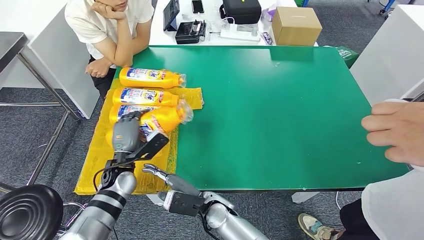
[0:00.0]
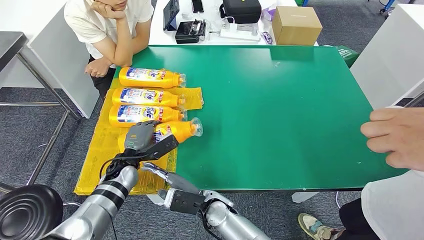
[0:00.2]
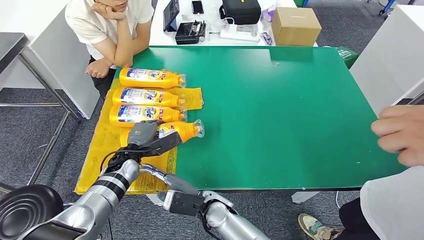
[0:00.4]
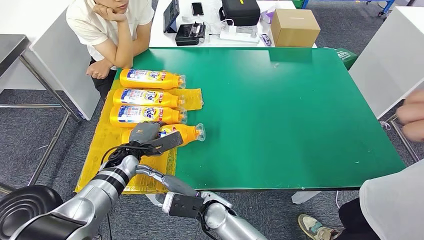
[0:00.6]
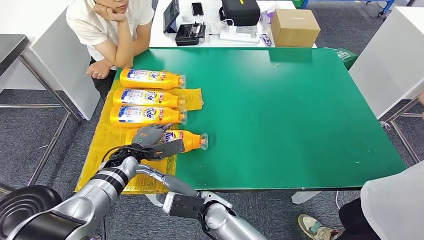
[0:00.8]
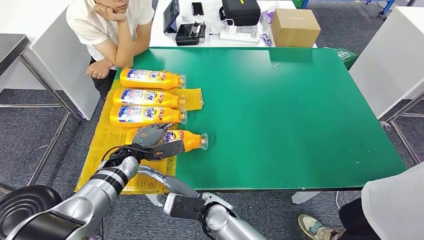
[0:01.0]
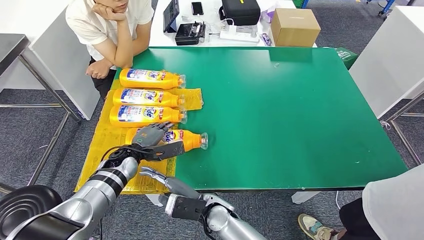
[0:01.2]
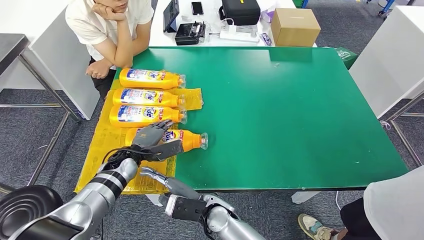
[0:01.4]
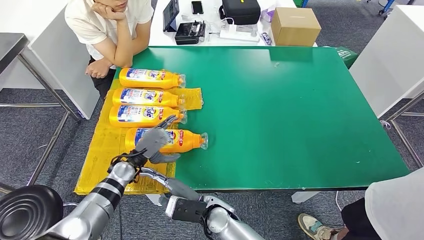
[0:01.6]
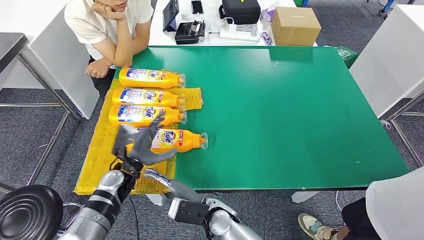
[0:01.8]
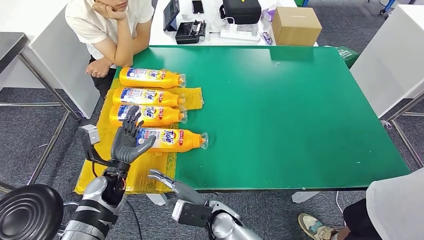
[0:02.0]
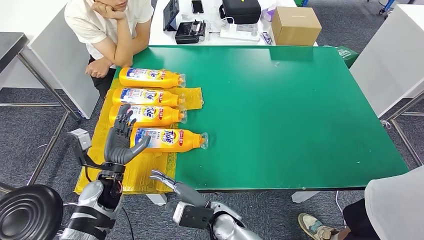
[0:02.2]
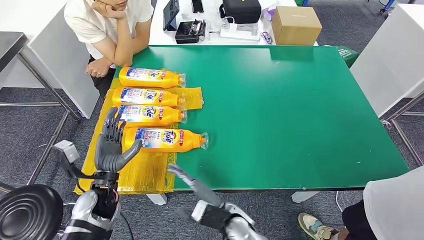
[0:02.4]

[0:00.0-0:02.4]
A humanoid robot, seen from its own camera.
Step, 0:00.0 to 0:02.2: Flip the bottle to face forward.
0:00.0 to 0:01.2: The left hand shifts by approximately 5 cm.
0:01.2 to 0:02.4: The left hand goes some 10 cm backward; the right hand changes place by approximately 5 cm.
